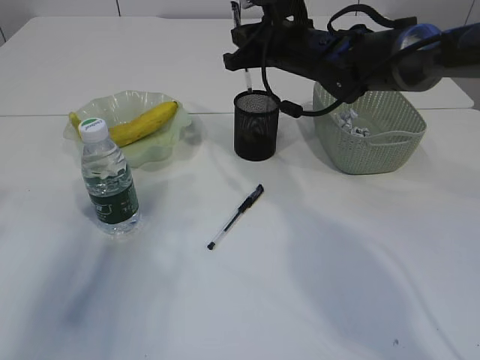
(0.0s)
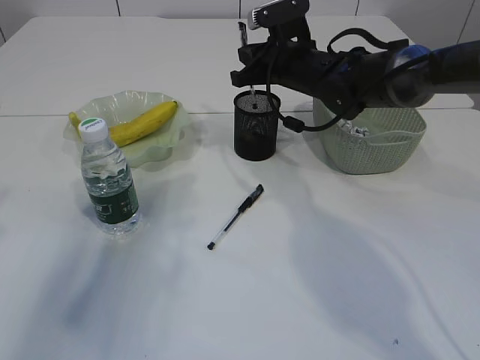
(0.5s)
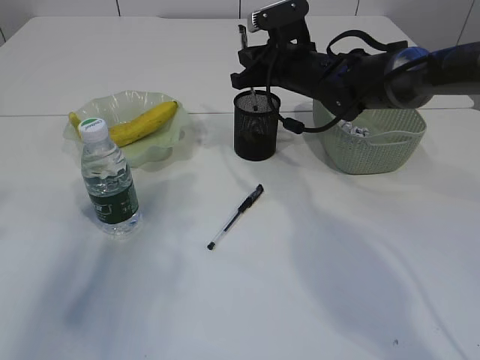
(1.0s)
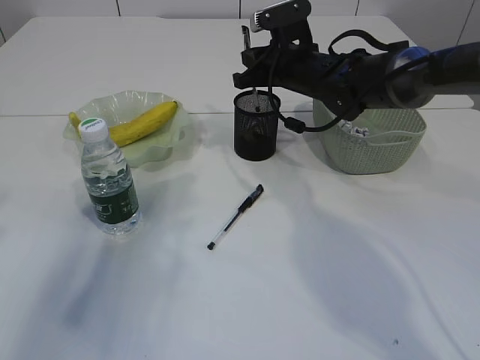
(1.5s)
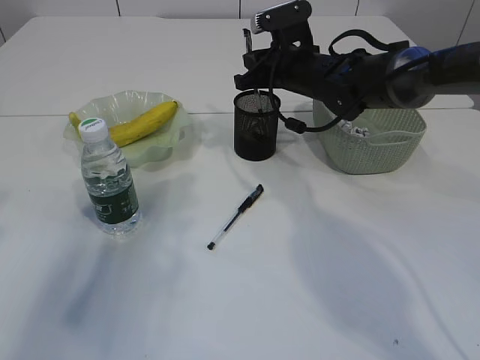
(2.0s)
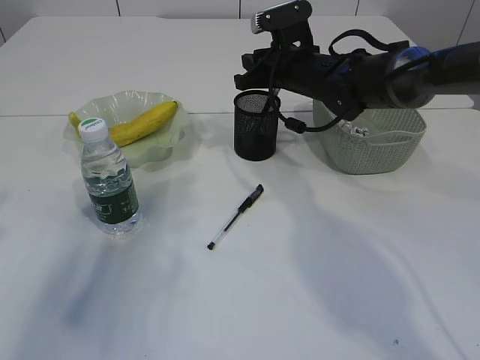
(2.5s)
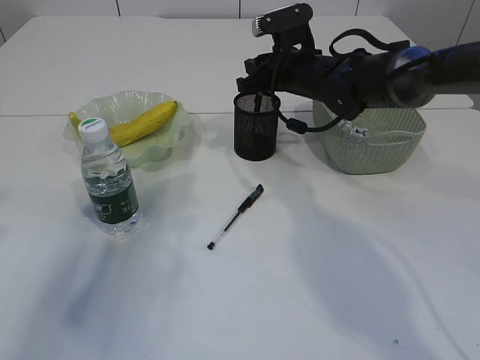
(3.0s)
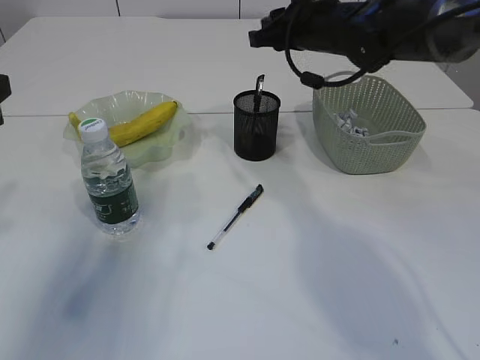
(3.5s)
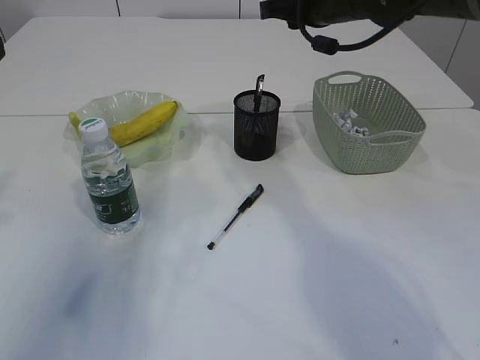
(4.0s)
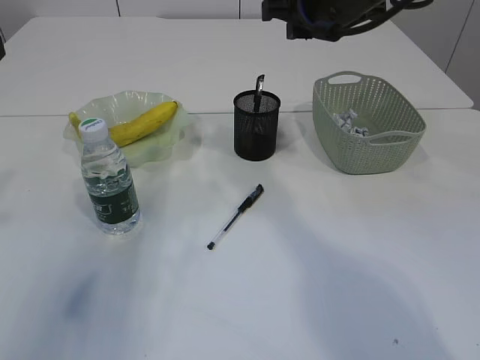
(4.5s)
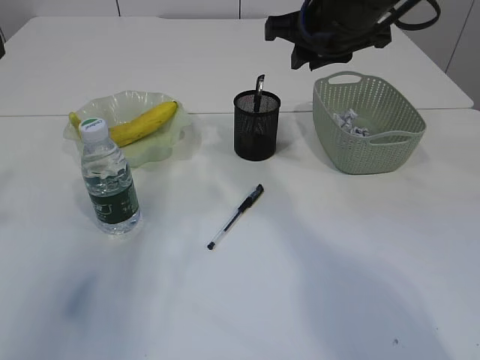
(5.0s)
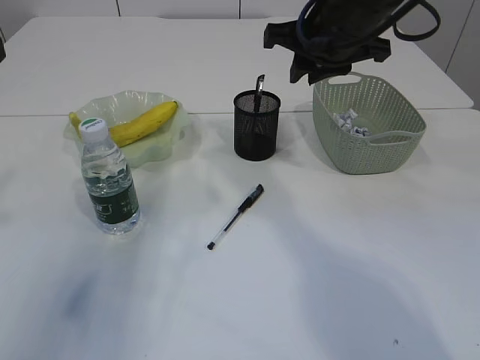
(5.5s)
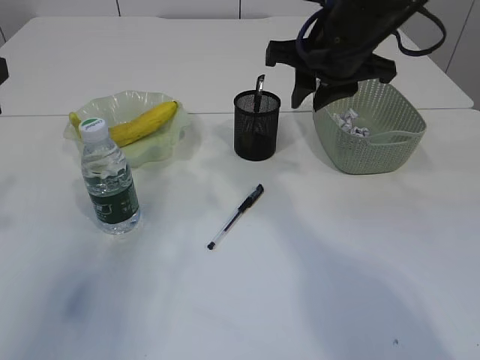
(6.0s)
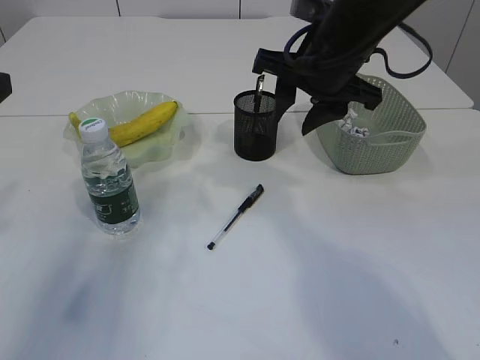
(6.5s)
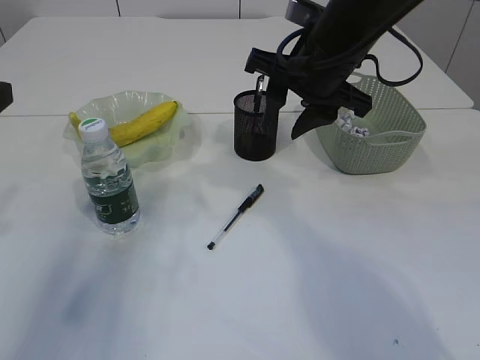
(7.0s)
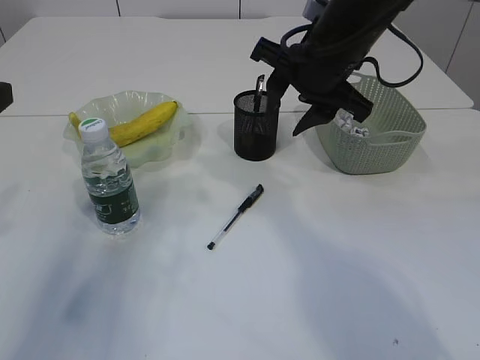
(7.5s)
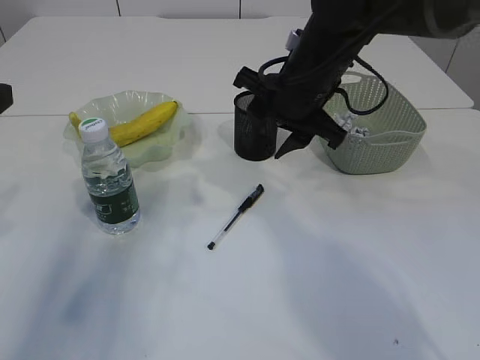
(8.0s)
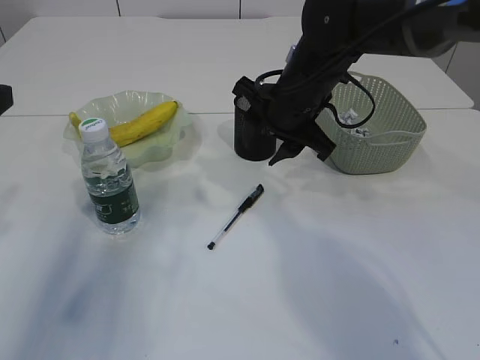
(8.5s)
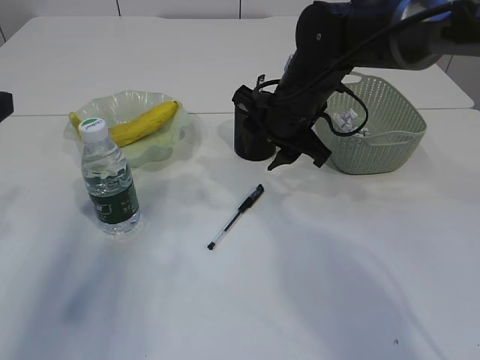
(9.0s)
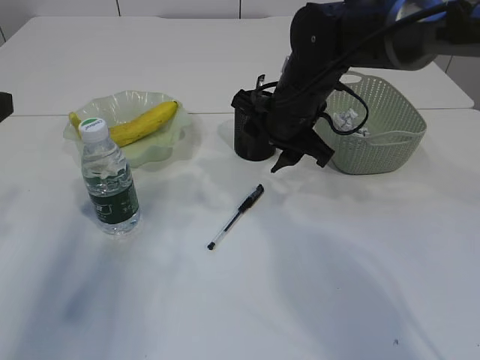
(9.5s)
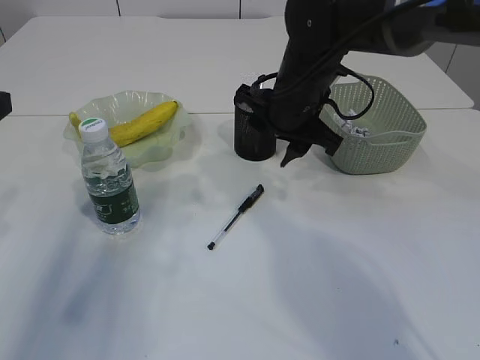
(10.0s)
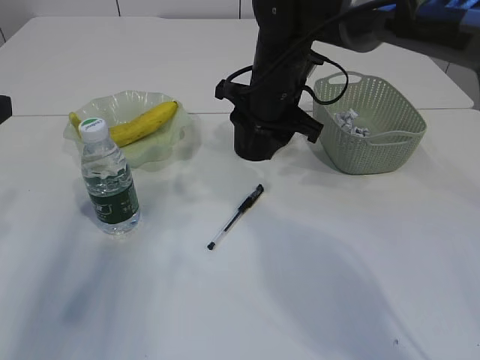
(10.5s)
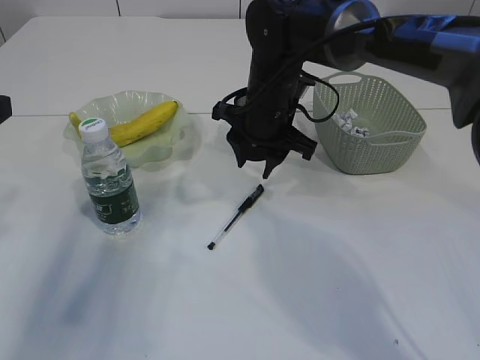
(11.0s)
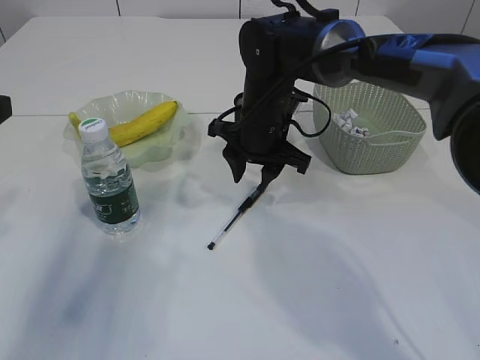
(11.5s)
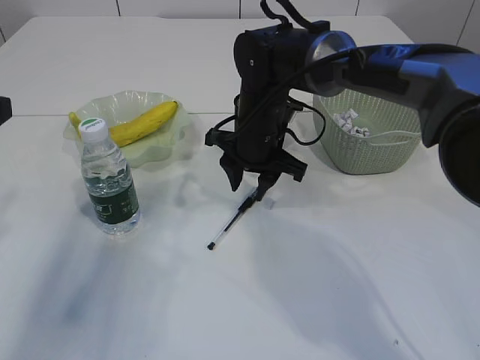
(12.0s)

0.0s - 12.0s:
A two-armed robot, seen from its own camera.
Step, 0.0s - 4.5s: Place the pen into the pen holder.
0.0s - 2.0s: The grippers stay close to where they were, moving slightly.
2.0s - 4.0s: The right gripper heads upward, covering roughly 10 cm.
4.0s - 6.0s: The right gripper shifts some 5 cm backward.
6.0s - 8.0s: The left gripper opens up; the right gripper goes roughly 5 cm downward.
8.0s - 10.0s: There are only small adjustments of the grippers.
10.0s - 12.0s: The right gripper heads downward, covering approximately 5 cm.

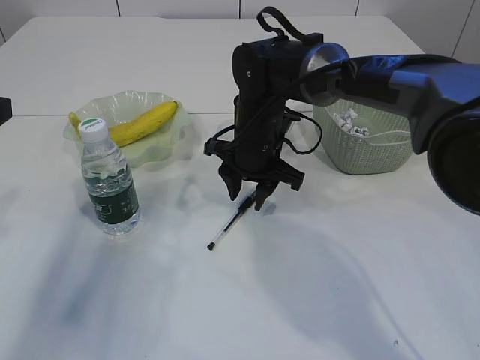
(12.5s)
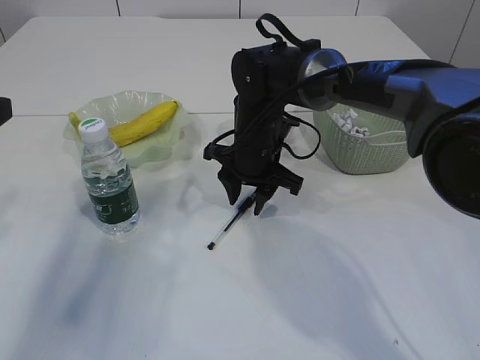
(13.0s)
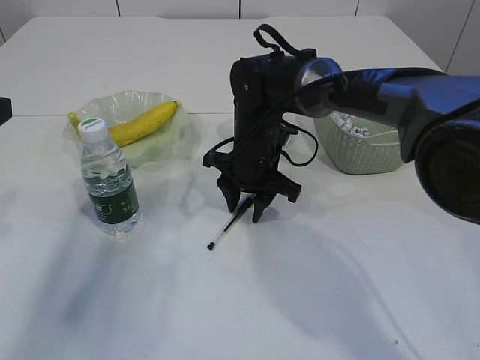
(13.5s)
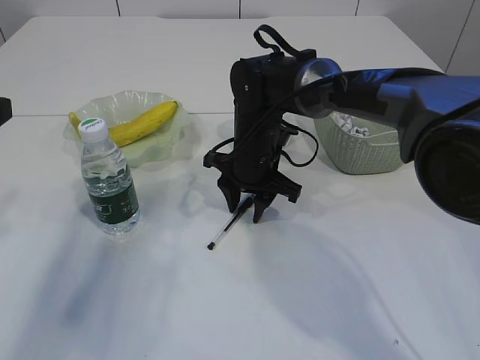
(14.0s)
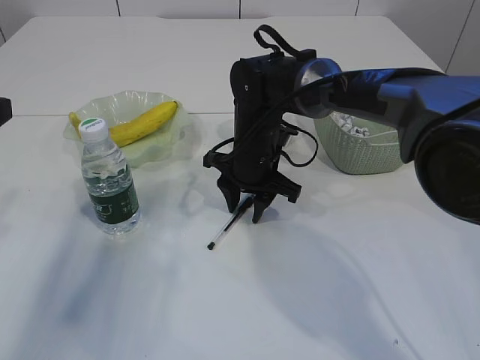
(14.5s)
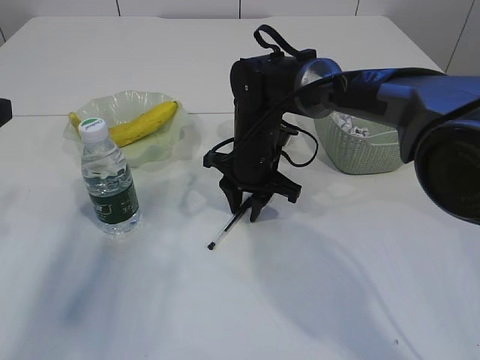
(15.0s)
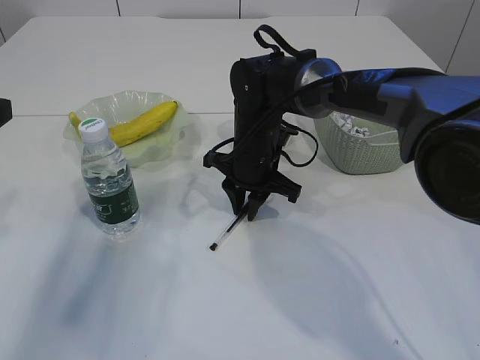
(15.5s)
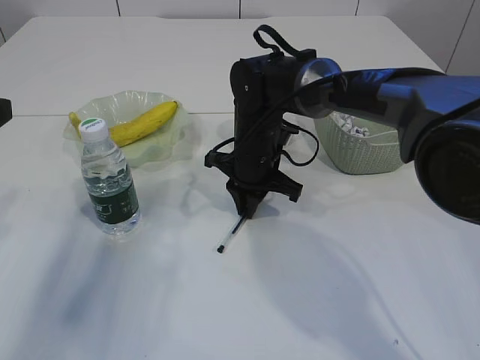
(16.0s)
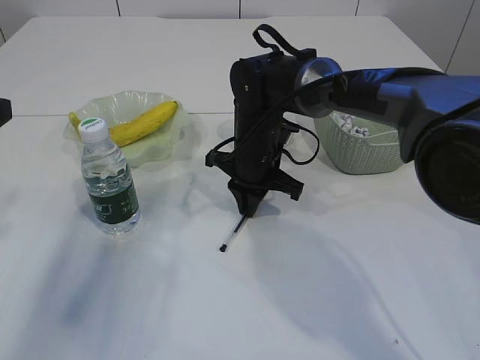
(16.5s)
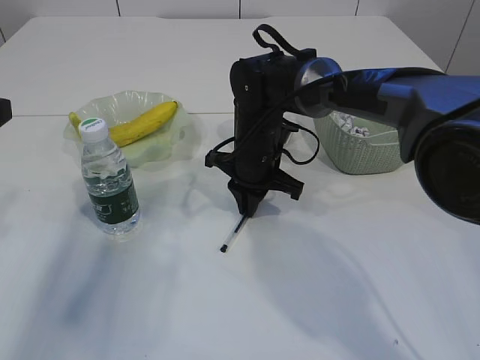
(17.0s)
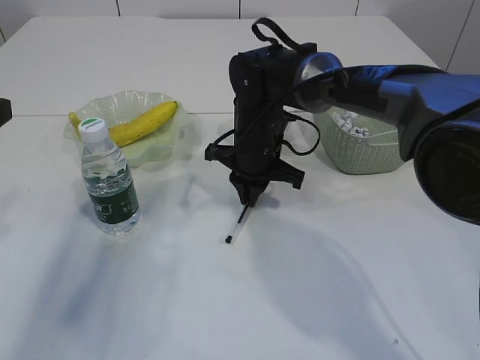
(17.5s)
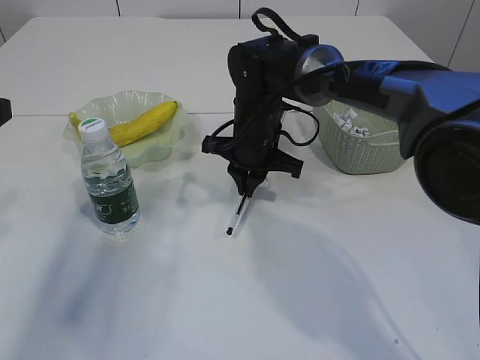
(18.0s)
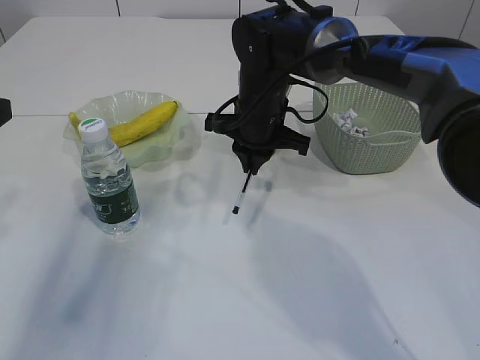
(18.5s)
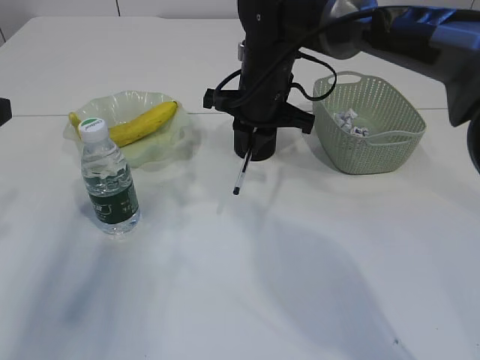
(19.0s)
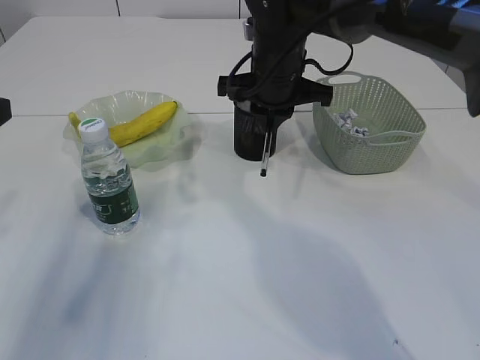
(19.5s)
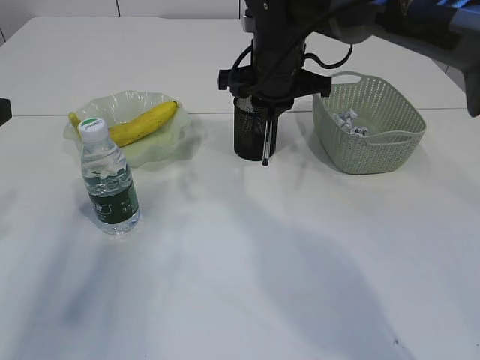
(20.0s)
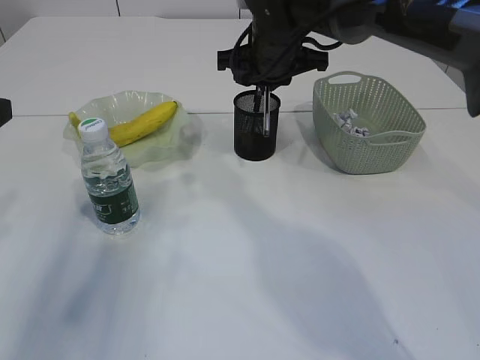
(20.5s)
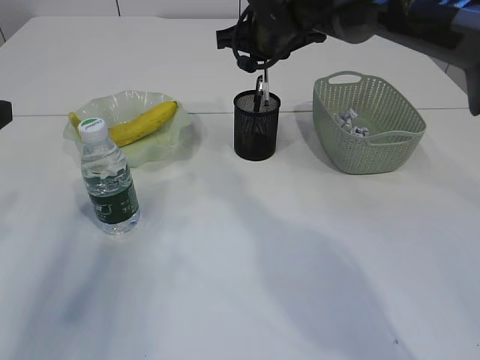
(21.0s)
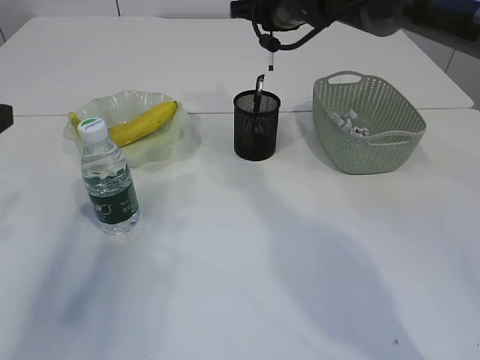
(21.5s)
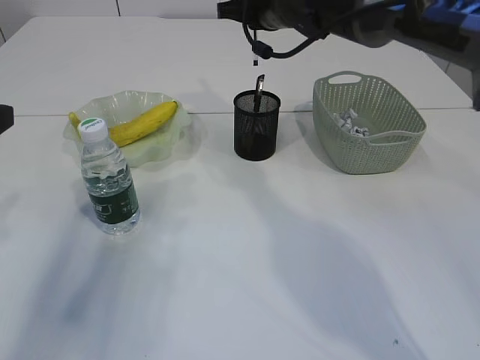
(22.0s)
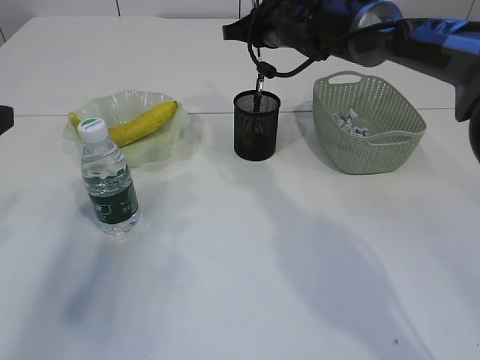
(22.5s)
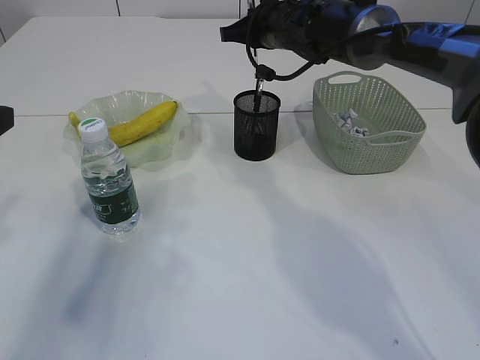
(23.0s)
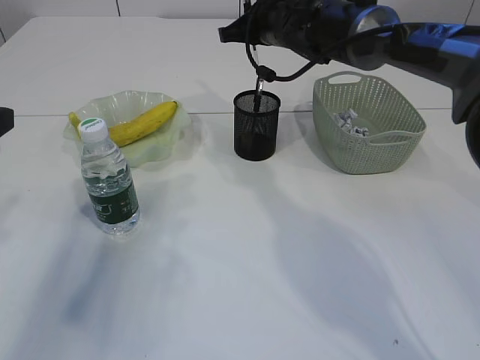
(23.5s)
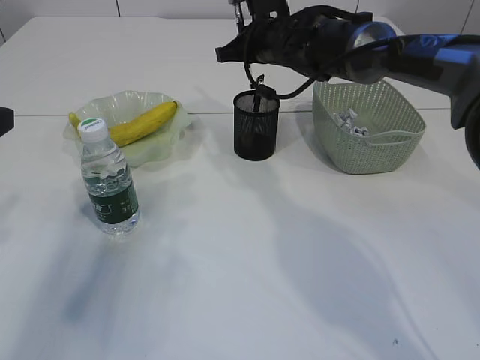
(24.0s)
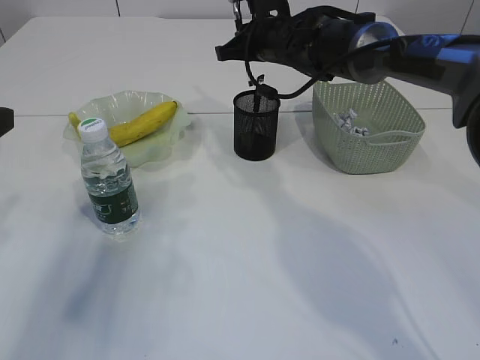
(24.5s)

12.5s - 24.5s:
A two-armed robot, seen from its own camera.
Step, 12.5s - 18.0s: Pick up the pen with right arm.
12.5s - 14.5s: The grippers stay close to where they were, moving slightly.
14.5s - 16.5s: The right gripper closes.
16.5s - 18.5s: The right gripper shifts approximately 5 cm upward.
18.5s - 20.5s: The right gripper travels upward by about 5 cm.
20.5s - 22.5s: The right gripper travels forward by roughly 5 cm.
22.5s - 24.5s: There are only small adjustments of the grippers.

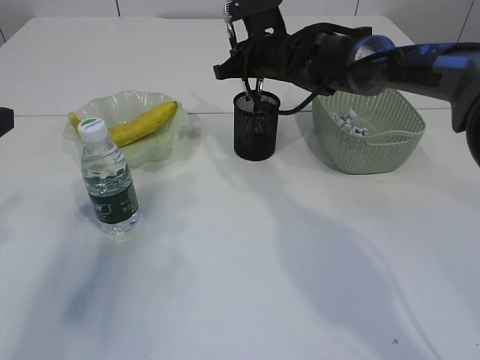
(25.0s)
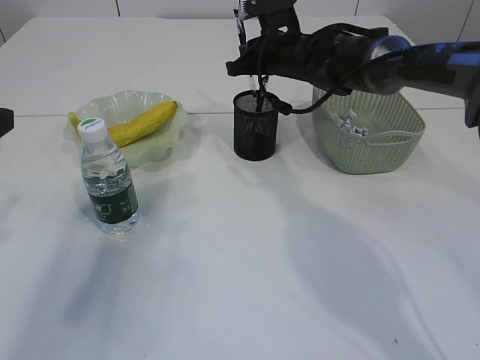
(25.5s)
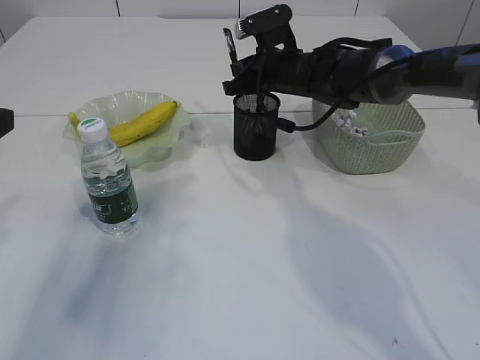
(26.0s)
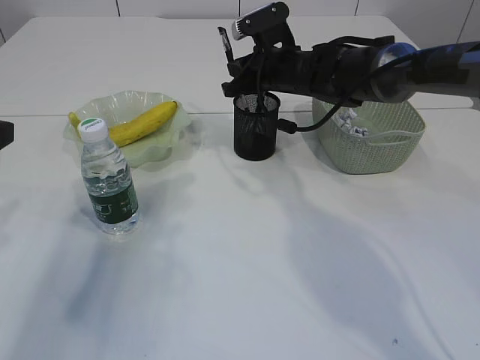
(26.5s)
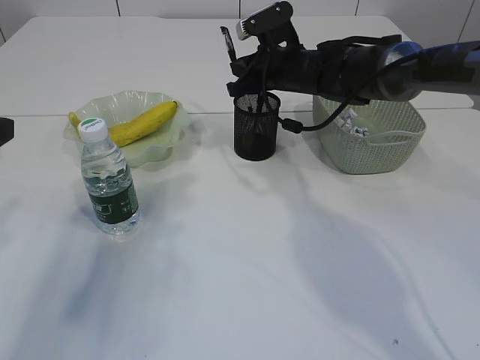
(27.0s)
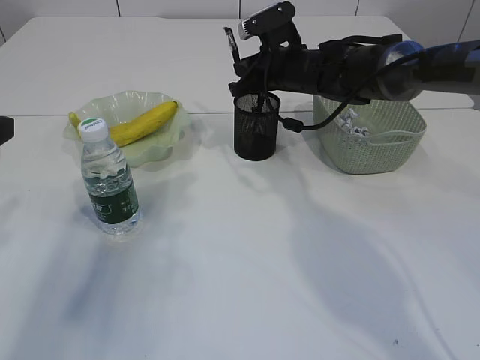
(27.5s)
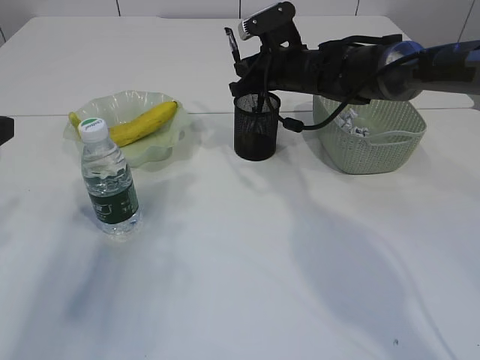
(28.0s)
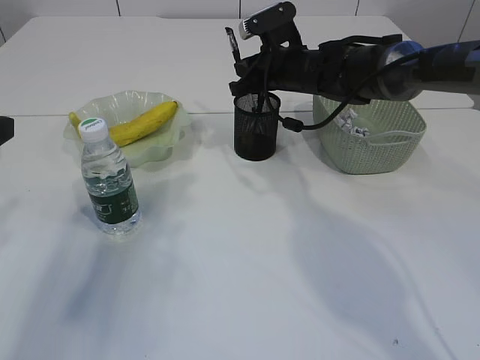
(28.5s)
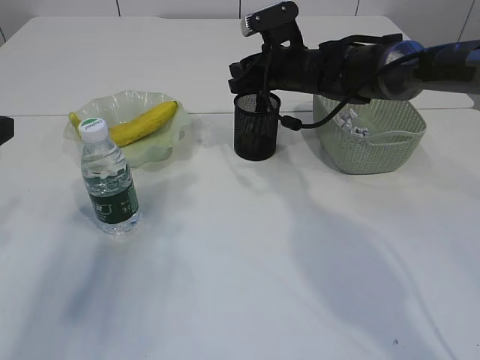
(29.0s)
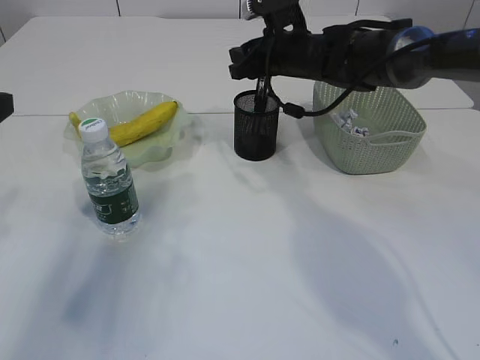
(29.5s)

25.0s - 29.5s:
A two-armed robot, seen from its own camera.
25.0s - 27.0s: The grippers make only small movements.
27.0s - 29.5s: The right gripper opens up.
